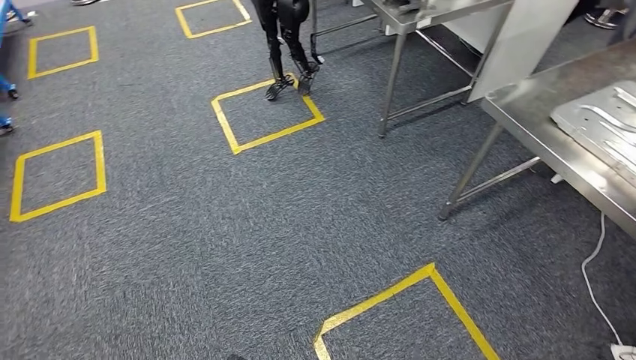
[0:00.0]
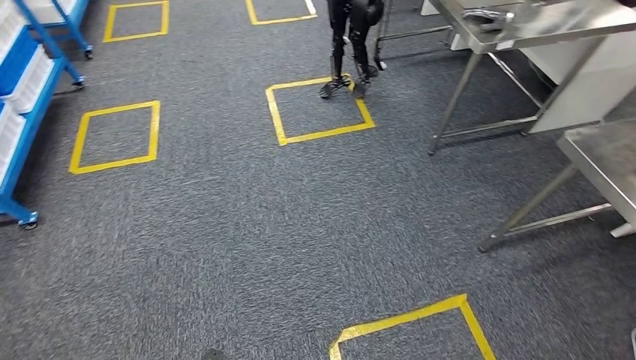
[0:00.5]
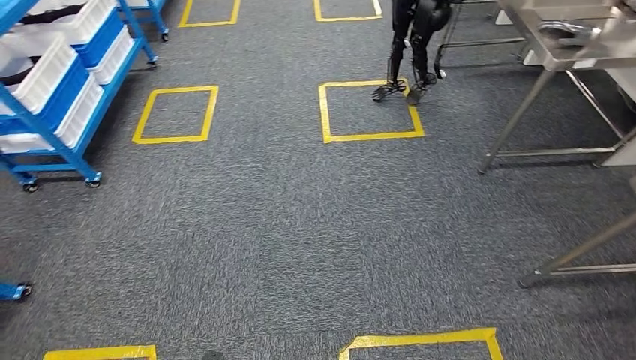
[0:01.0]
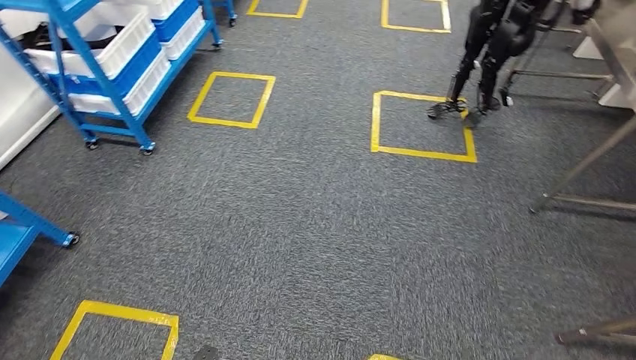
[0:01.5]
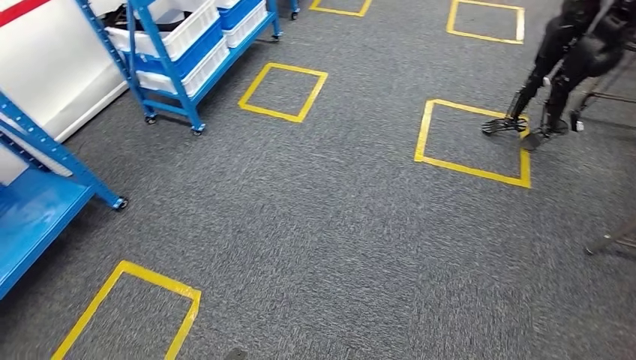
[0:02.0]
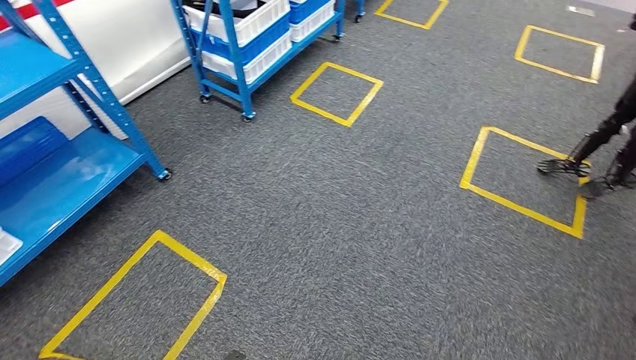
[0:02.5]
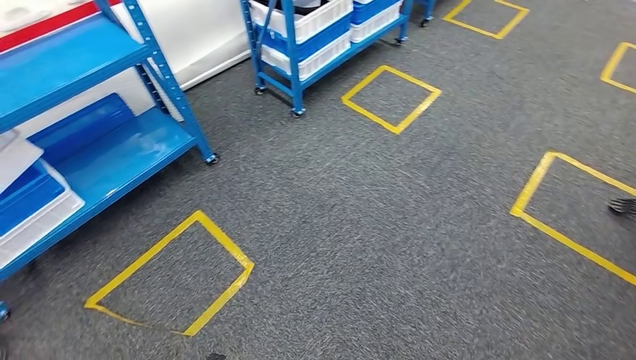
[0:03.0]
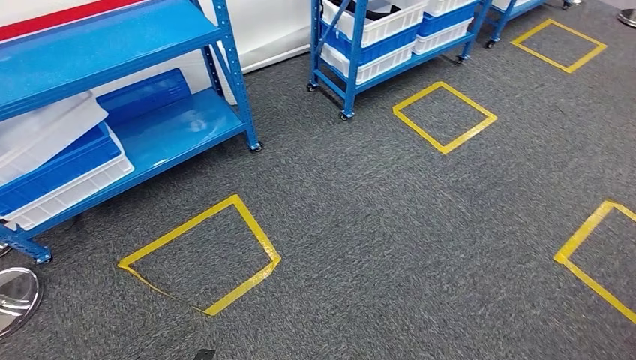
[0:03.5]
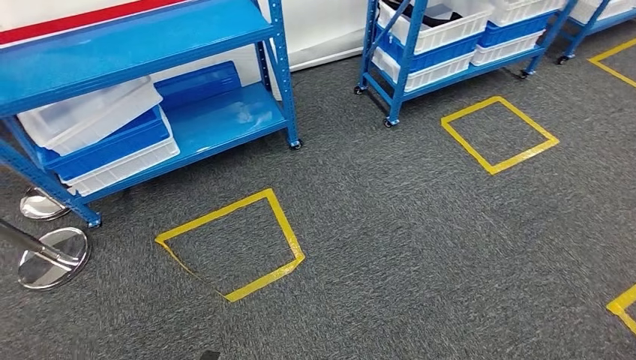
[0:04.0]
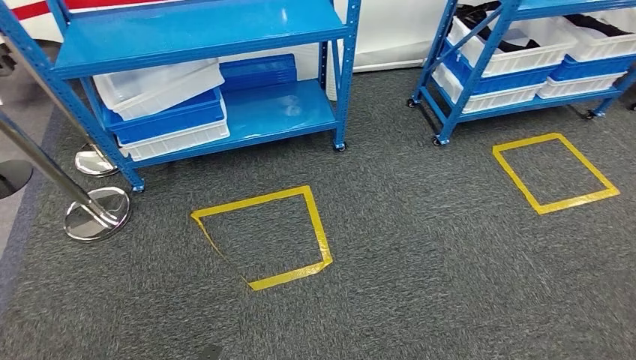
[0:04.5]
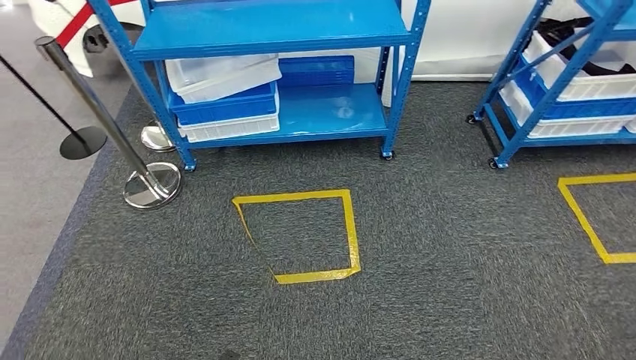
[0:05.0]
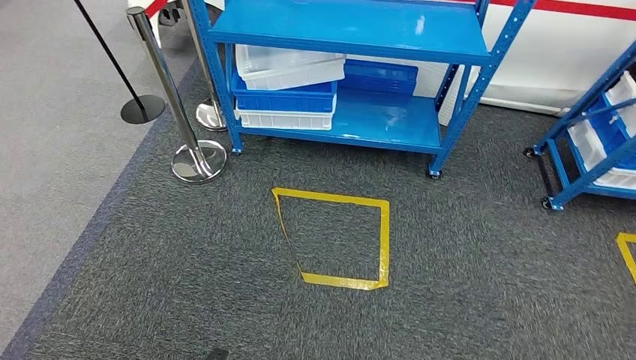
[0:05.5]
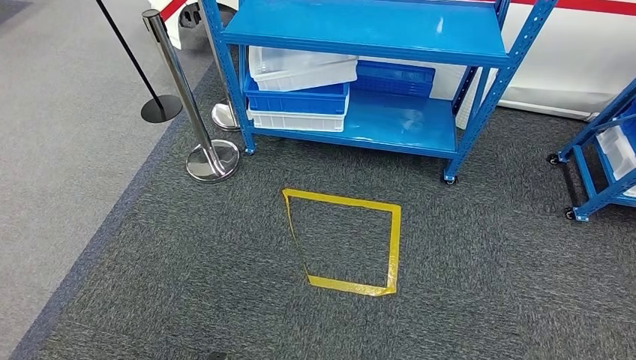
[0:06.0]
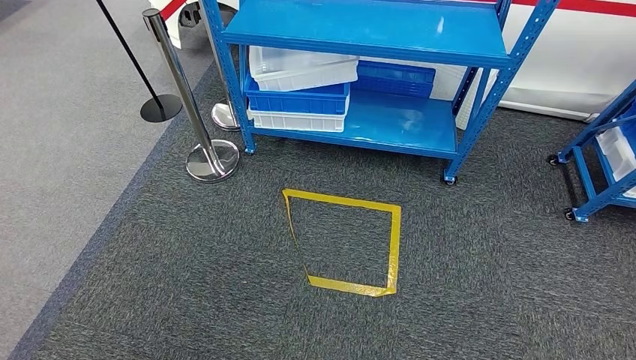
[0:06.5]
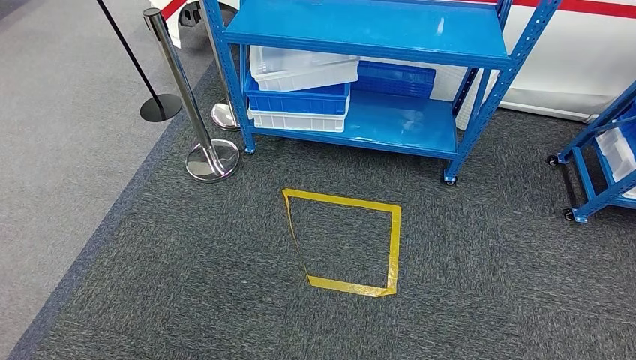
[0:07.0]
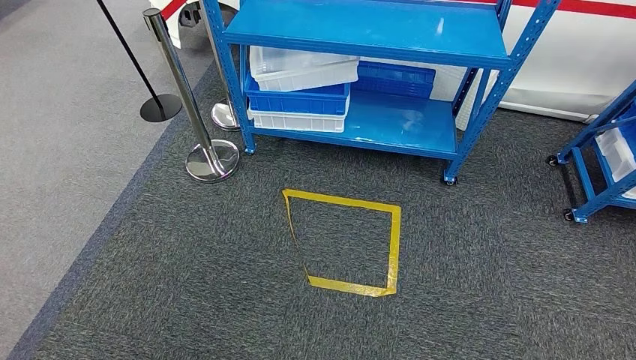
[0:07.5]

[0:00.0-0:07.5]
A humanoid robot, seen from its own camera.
Step, 0:00.0 to 0:07.5: Return to the initial position at the shelf.
0:05.5 to 0:07.5: Both hands travel together backward, some 5 cm.
